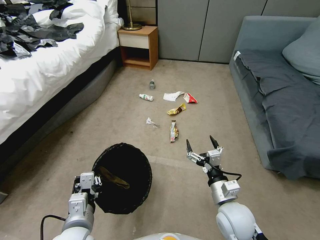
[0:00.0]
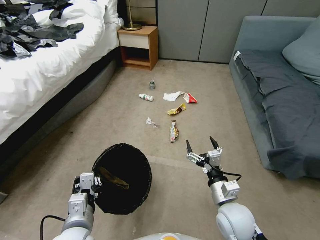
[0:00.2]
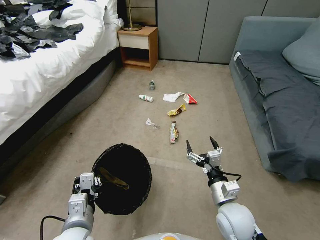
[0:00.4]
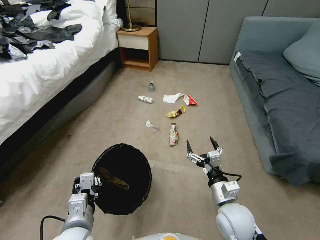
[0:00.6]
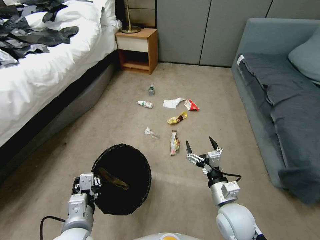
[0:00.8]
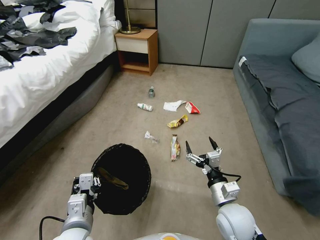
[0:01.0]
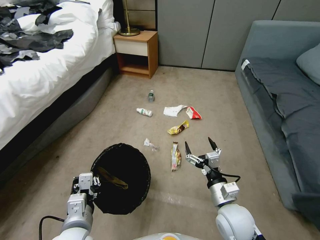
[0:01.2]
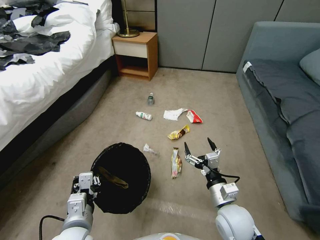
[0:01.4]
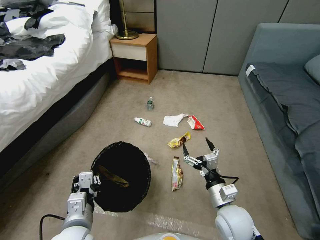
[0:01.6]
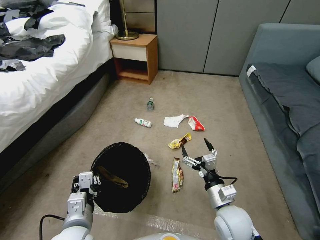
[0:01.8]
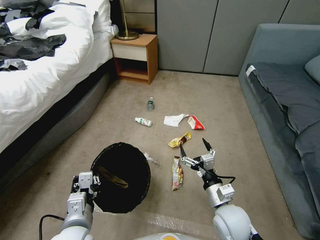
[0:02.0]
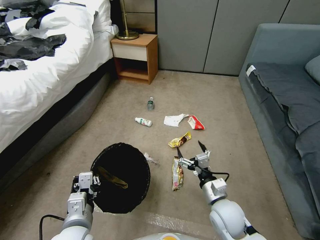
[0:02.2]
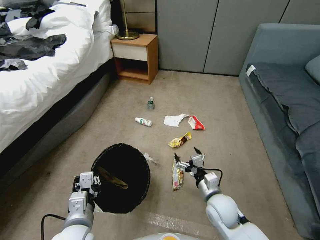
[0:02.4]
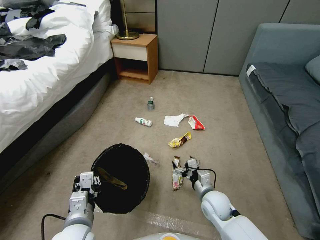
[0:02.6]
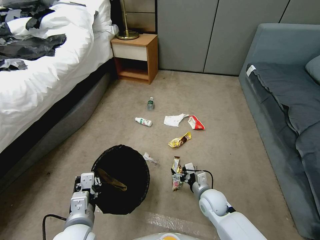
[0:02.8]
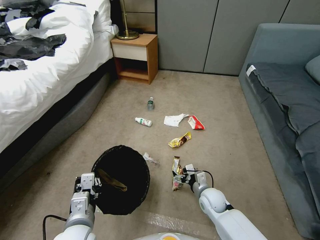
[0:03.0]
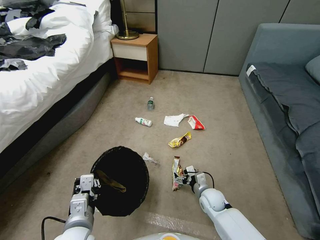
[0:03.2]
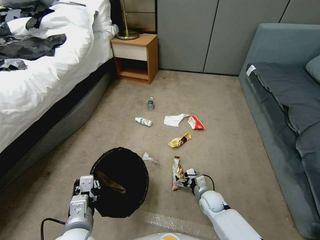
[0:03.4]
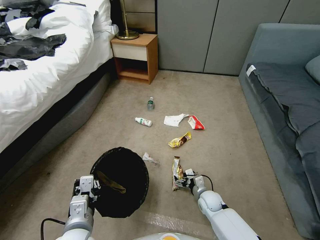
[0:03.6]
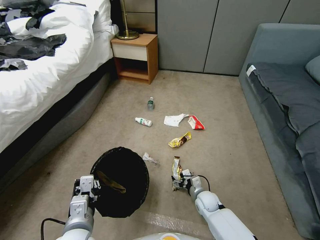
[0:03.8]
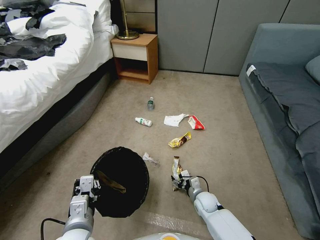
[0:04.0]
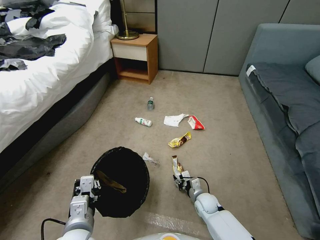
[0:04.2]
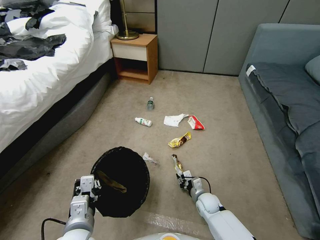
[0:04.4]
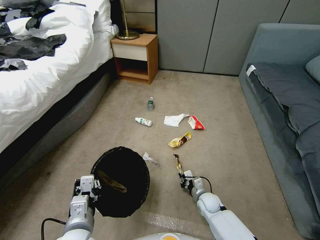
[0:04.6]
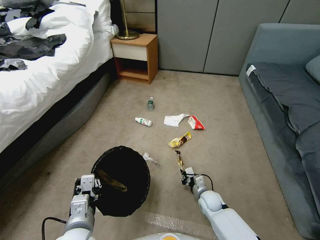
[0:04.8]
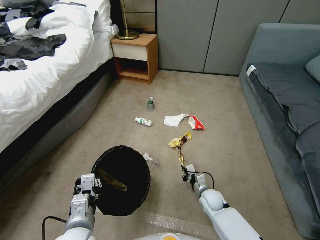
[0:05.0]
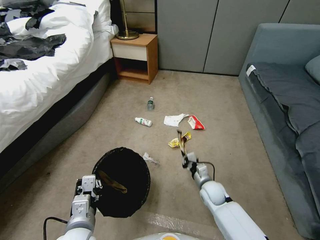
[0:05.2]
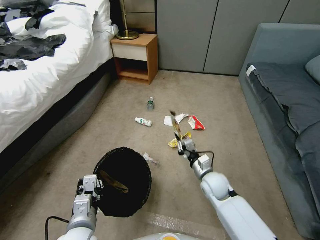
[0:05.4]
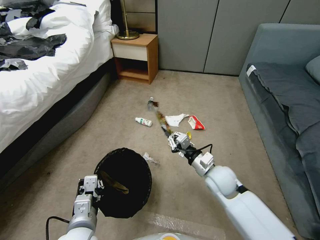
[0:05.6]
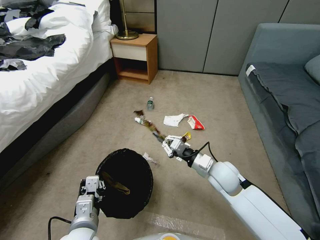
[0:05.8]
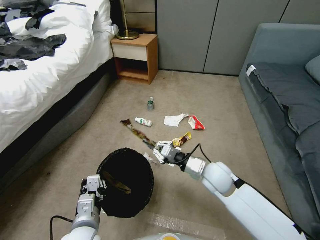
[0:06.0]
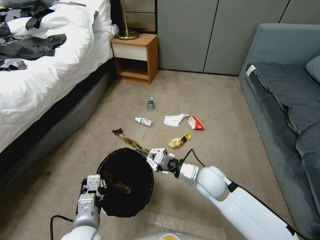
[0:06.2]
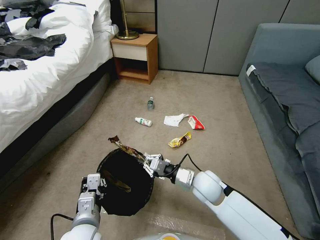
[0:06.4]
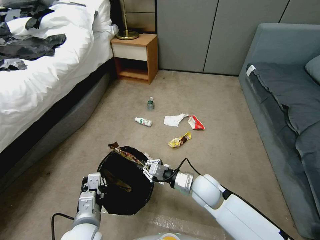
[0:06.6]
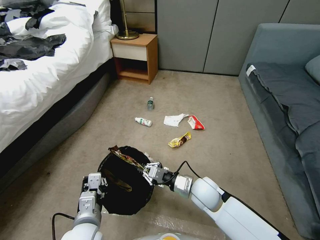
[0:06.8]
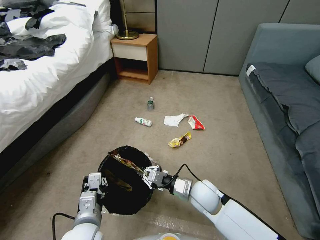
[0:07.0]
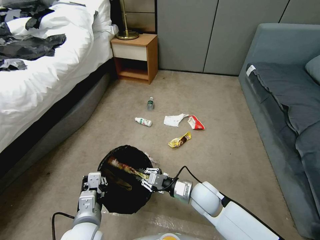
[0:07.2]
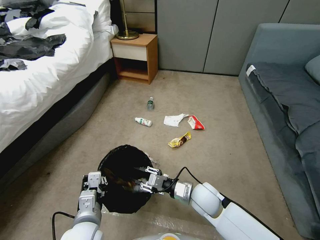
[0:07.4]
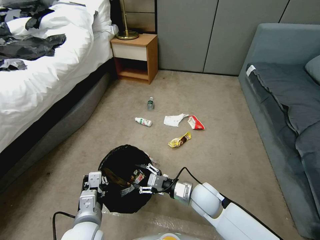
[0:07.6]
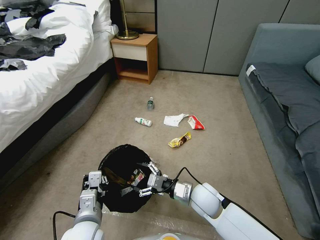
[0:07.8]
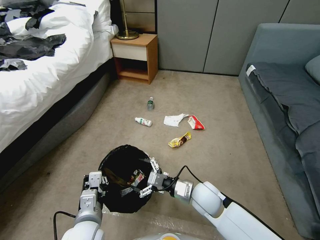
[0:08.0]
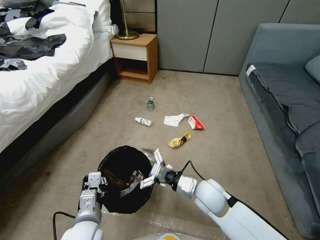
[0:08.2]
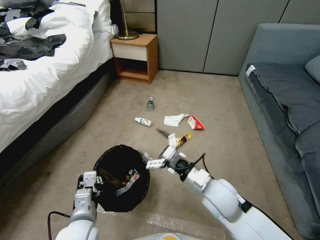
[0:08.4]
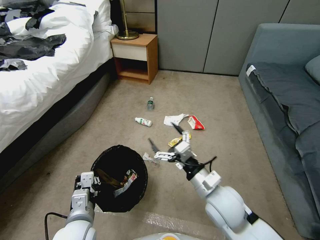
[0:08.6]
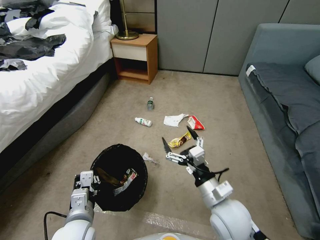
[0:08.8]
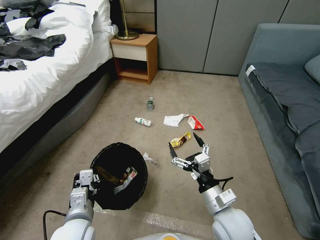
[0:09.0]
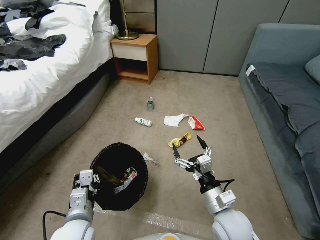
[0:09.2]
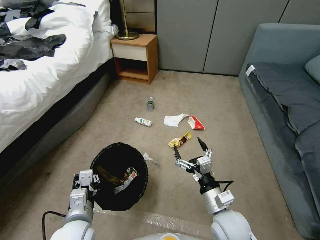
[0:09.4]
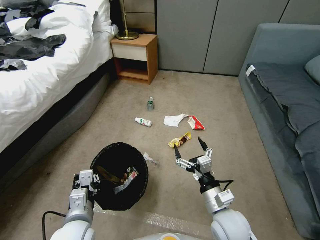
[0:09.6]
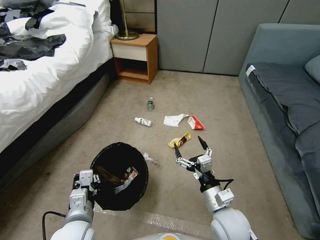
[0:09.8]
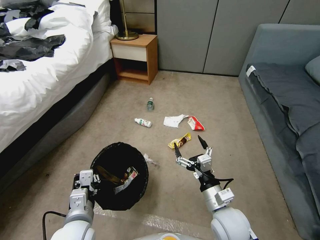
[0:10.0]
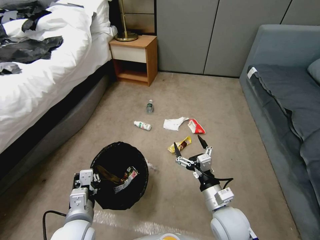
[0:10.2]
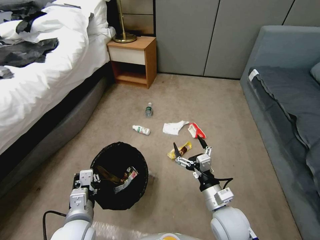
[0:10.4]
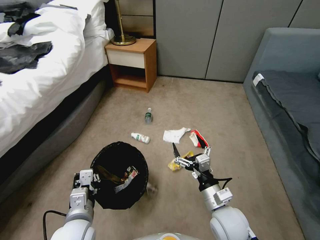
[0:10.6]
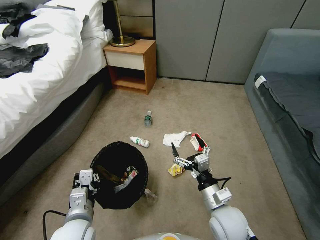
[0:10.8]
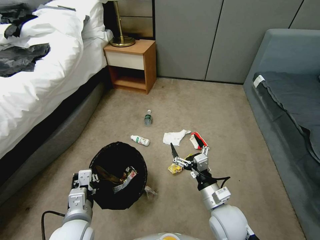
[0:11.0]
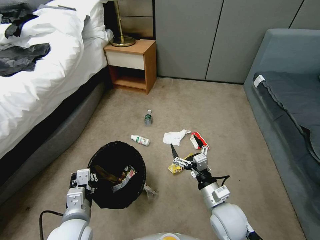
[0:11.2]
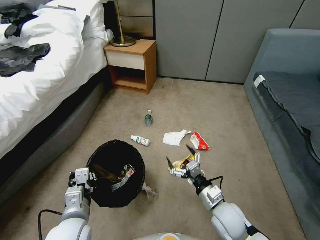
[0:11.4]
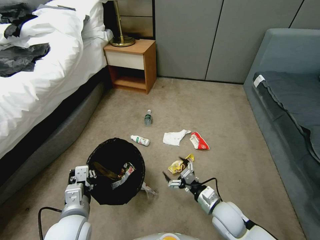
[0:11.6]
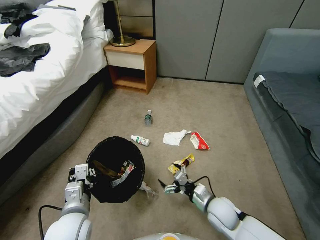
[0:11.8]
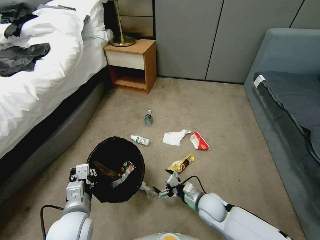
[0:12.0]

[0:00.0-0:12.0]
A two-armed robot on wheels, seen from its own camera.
Task of the whole recording: Pick up the trash bin, then pick up the garbage from the floor and place it into the trash bin.
0:01.6 to 0:03.0: The right gripper travels downward and forward by approximately 15 cm.
0:03.0 to 0:04.4: The right gripper heads downward, covering approximately 10 cm, and closes its fingers.
0:04.4 to 0:06.0: The right gripper goes about 25 cm upward.
0:06.0 to 0:07.6: The right gripper travels downward by approximately 5 cm, and opens.
0:07.6 to 0:09.0: The right gripper travels backward and upward by some 10 cm, and opens.
0:09.0 to 0:10.4: The grippers stay close to where they were, moving slightly.
0:10.4 to 0:12.0: The right gripper travels downward and forward by approximately 15 cm.

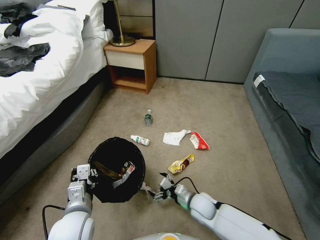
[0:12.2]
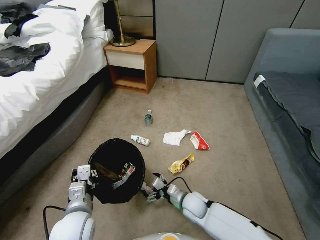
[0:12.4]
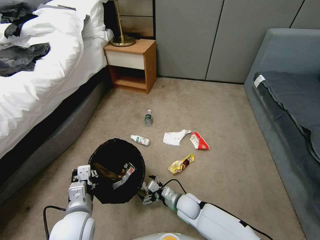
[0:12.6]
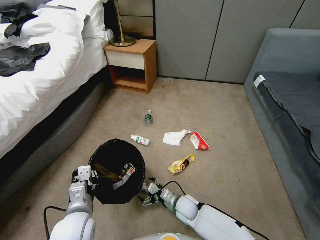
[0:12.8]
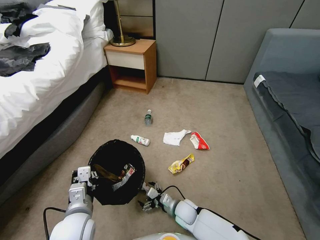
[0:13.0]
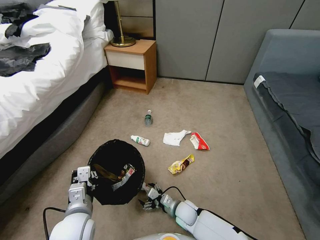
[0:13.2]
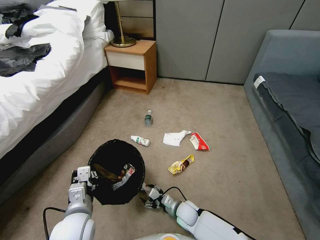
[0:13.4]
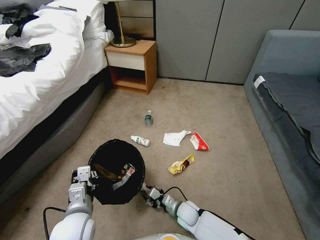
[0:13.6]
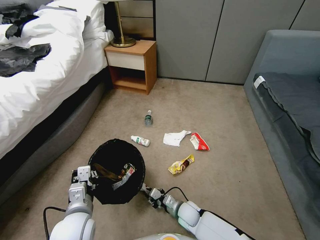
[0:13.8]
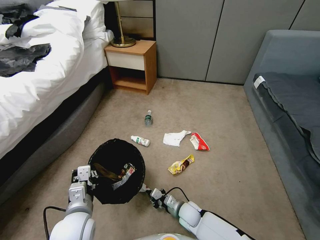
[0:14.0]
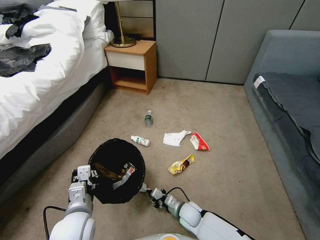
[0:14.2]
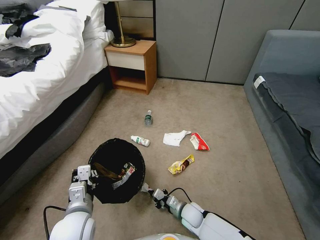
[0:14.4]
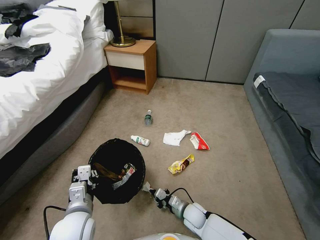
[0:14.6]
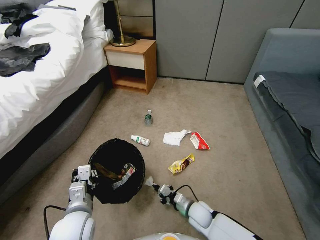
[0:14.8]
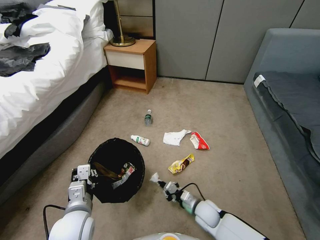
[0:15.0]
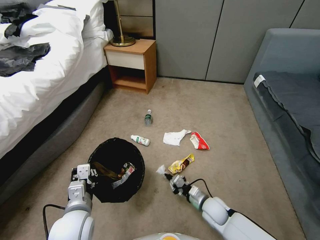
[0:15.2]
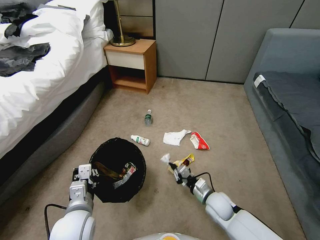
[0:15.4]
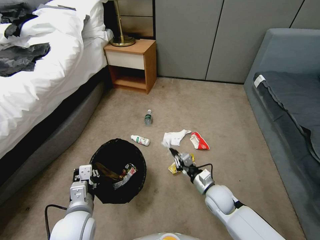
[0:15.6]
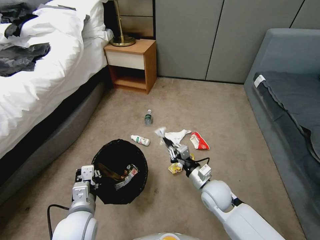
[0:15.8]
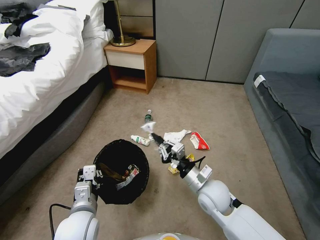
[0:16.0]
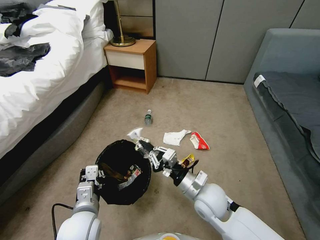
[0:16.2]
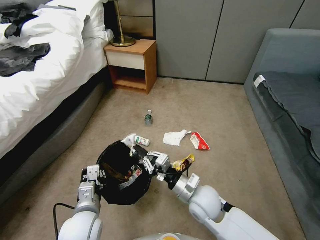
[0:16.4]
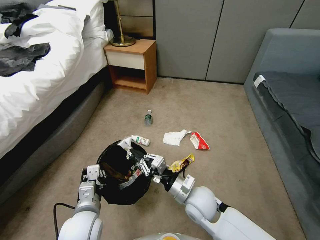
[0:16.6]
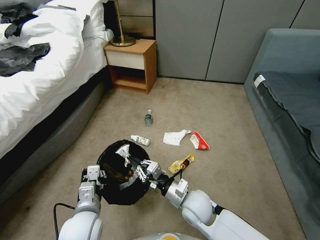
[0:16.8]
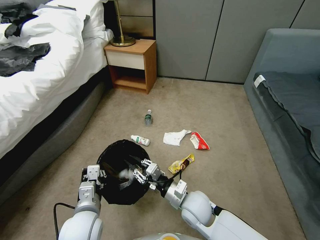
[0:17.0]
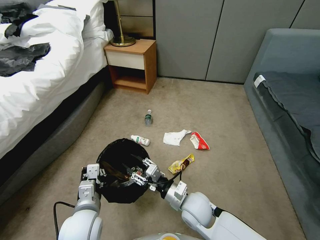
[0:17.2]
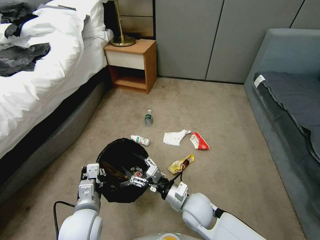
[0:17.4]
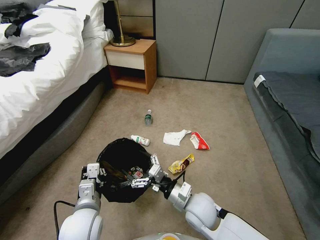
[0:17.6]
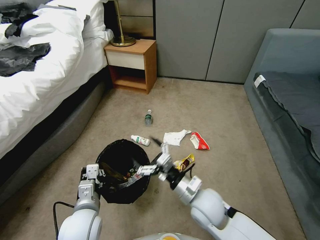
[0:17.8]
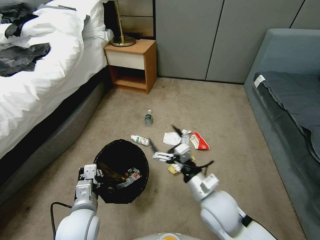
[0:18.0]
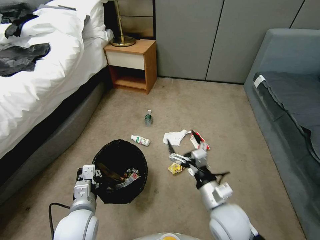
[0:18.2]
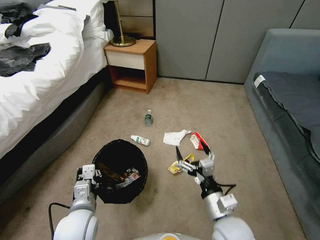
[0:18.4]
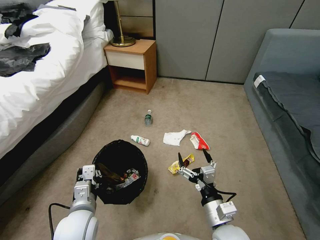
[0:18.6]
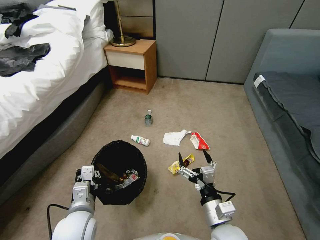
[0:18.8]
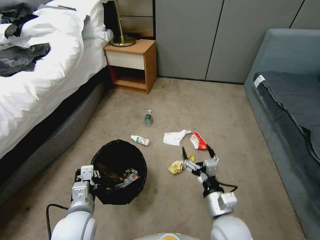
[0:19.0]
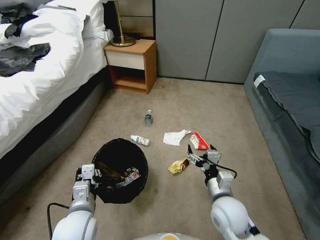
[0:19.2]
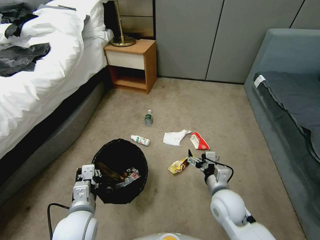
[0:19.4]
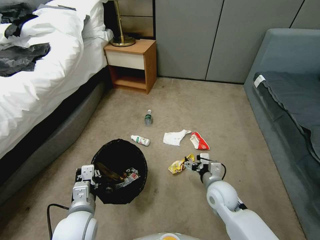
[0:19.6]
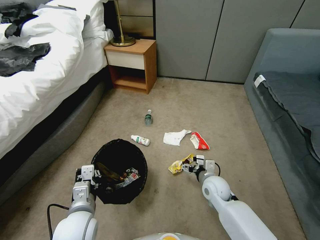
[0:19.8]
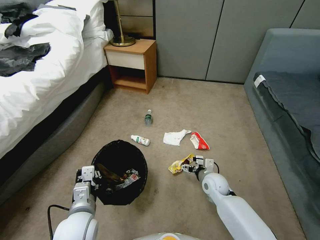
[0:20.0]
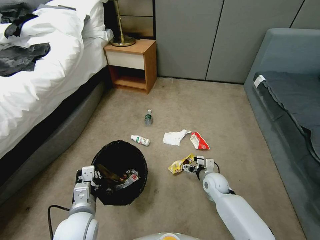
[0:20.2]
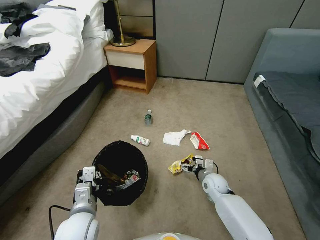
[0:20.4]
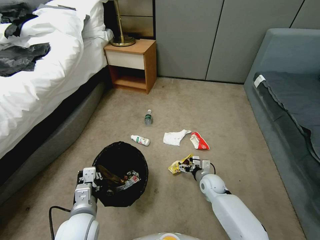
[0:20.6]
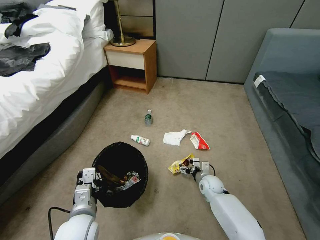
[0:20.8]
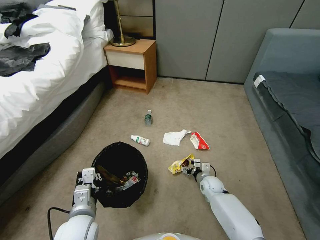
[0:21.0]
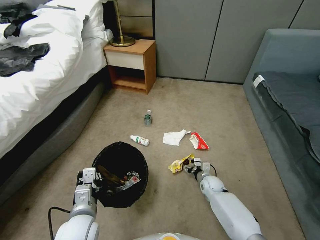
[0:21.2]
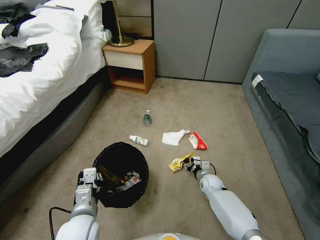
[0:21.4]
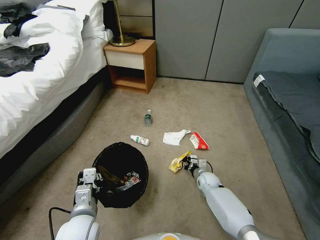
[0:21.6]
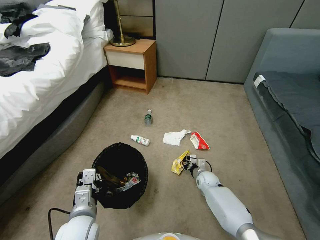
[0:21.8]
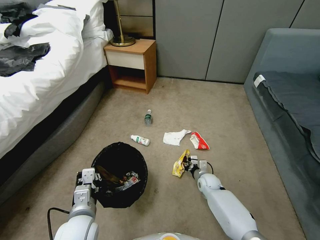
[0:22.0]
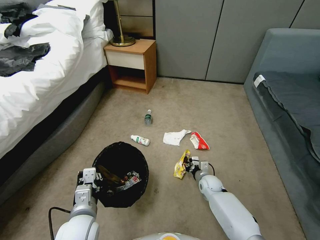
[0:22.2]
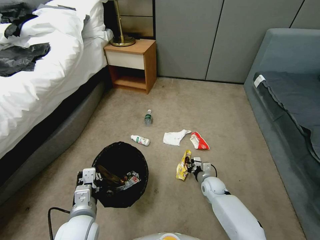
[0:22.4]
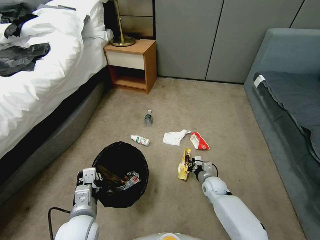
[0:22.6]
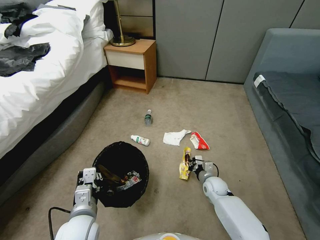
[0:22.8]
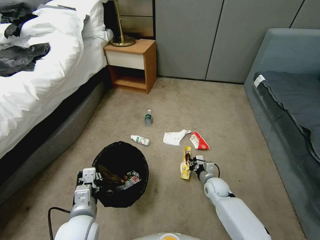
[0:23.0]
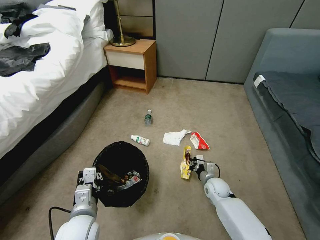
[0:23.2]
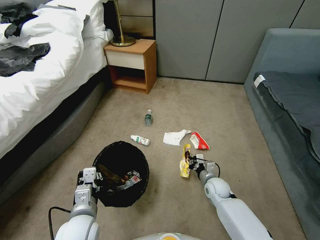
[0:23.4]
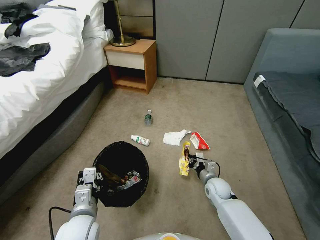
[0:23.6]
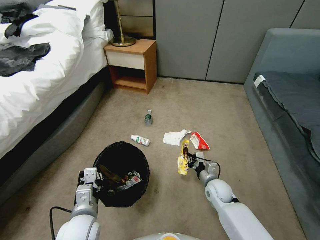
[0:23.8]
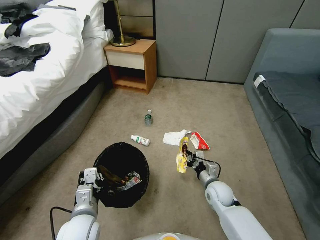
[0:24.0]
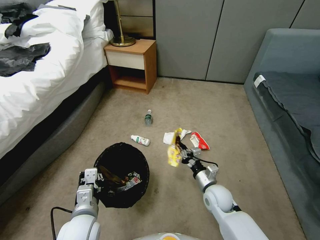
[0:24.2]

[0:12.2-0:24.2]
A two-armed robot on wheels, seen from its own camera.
Task of the whole recording: Pick up the trash bin, then pick up the garbage from the floor and place it into the trash bin.
0:12.2 to 0:13.8: The right gripper heads downward, covering roughly 10 cm, and closes its fingers.
0:13.8 to 0:15.2: The right gripper moves to the right and upward, about 10 cm.
0:15.2 to 0:16.6: The right gripper shifts about 15 cm upward and to the left.
0:16.6 to 0:18.2: The right gripper moves to the right and upward, approximately 10 cm, and opens.
0:18.2 to 0:19.8: The right gripper goes about 20 cm downward and forward.
0:19.8 to 0:21.2: The right gripper moves downward, approximately 10 cm.
0:21.2 to 0:22.6: The right gripper closes.
0:22.6 to 0:24.2: The right gripper goes some 10 cm upward and backward.
